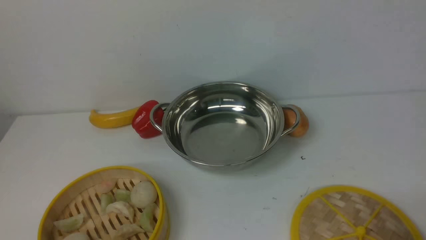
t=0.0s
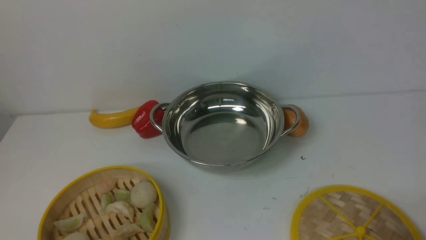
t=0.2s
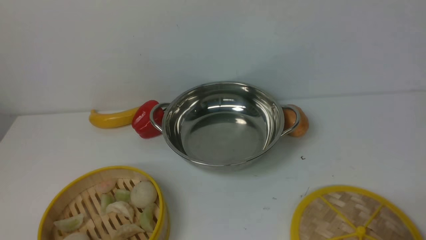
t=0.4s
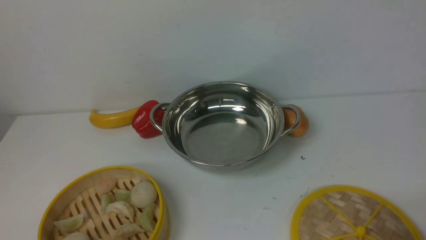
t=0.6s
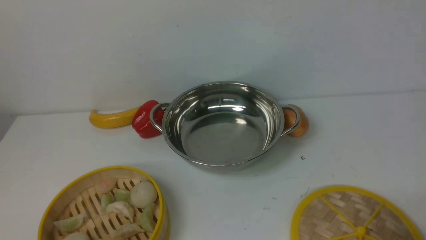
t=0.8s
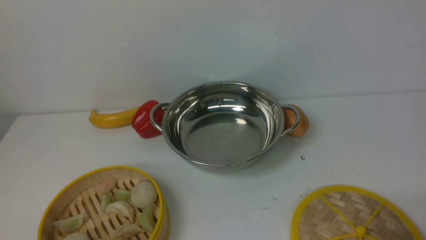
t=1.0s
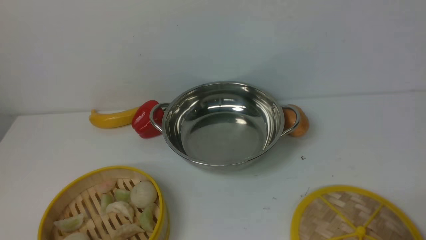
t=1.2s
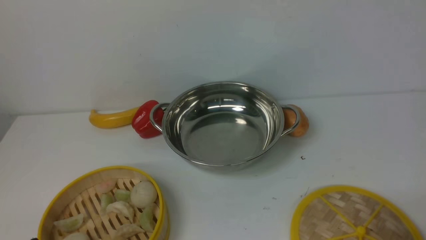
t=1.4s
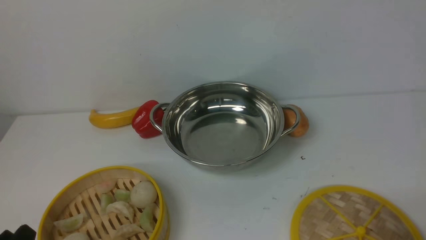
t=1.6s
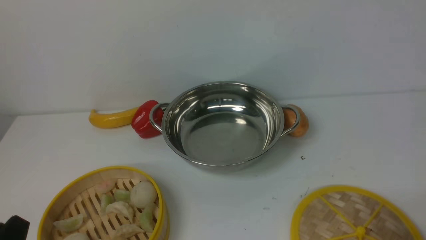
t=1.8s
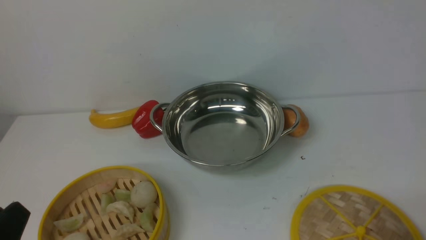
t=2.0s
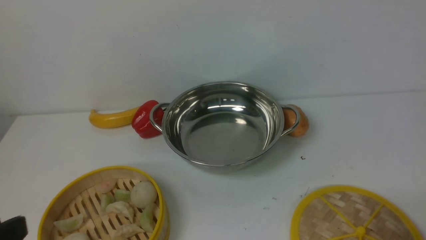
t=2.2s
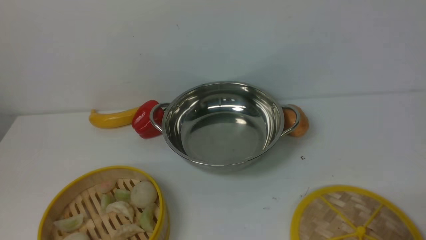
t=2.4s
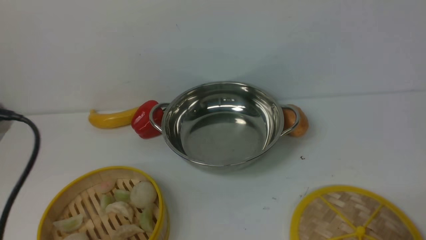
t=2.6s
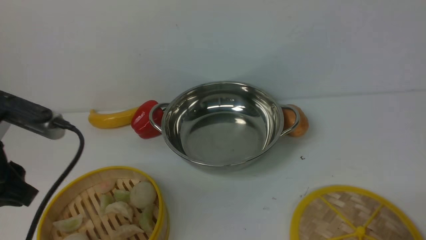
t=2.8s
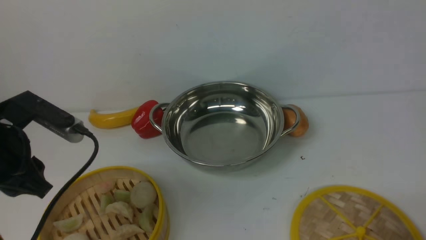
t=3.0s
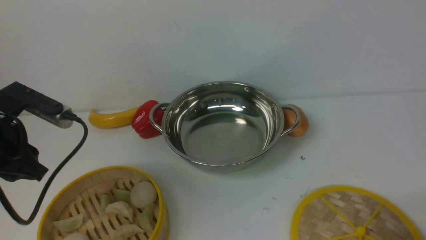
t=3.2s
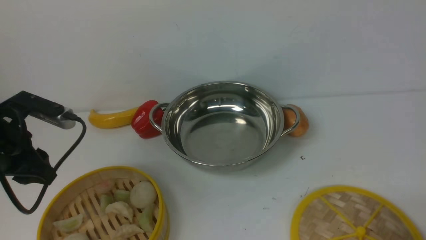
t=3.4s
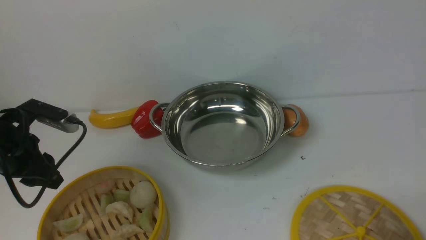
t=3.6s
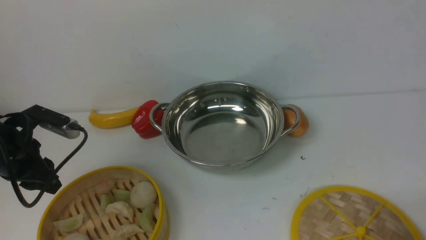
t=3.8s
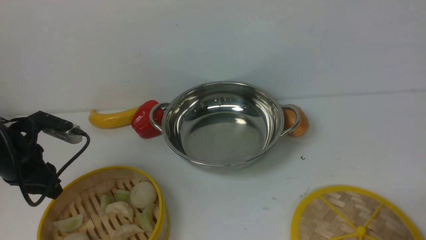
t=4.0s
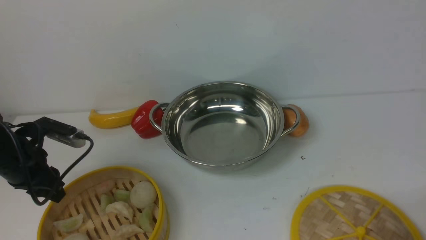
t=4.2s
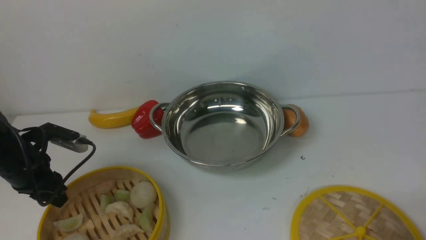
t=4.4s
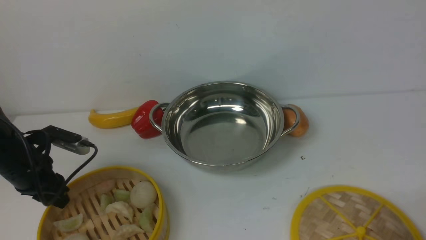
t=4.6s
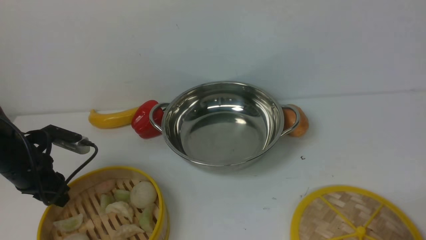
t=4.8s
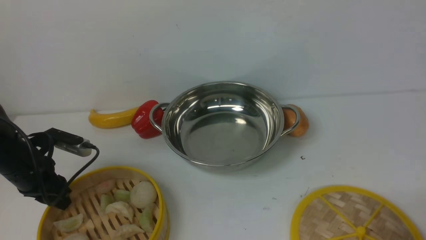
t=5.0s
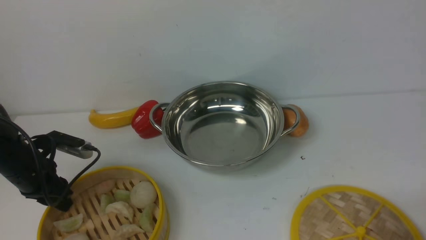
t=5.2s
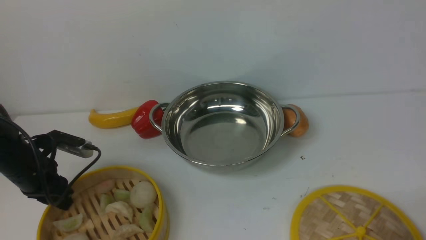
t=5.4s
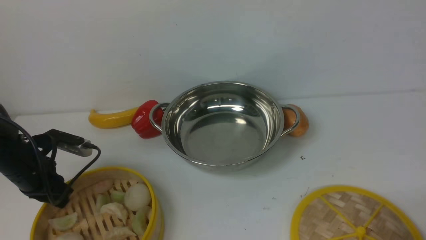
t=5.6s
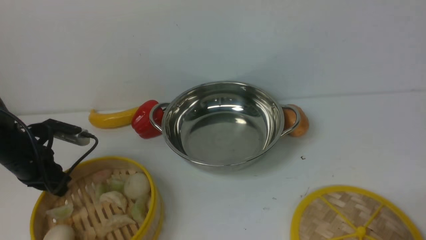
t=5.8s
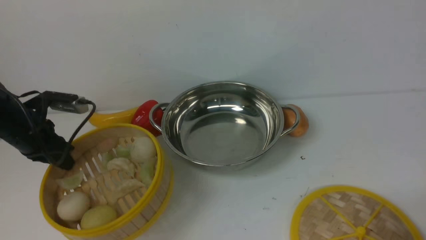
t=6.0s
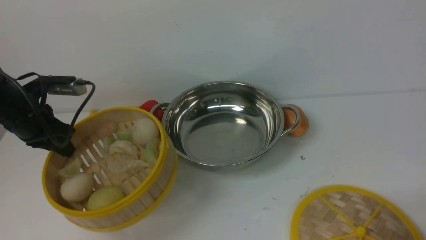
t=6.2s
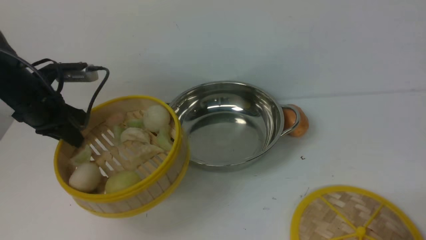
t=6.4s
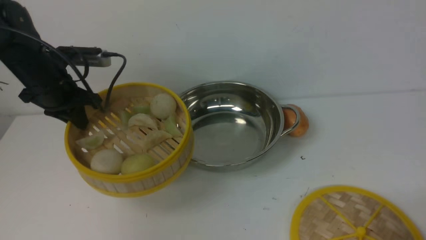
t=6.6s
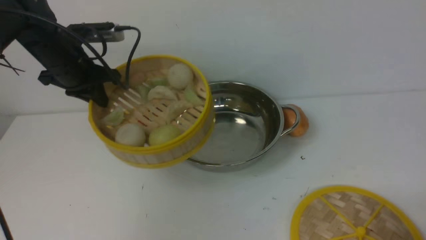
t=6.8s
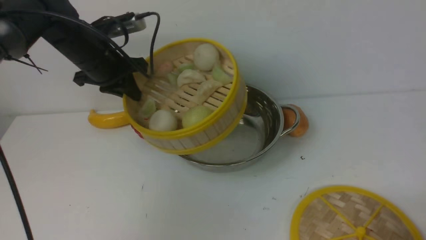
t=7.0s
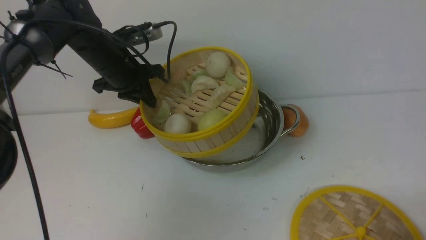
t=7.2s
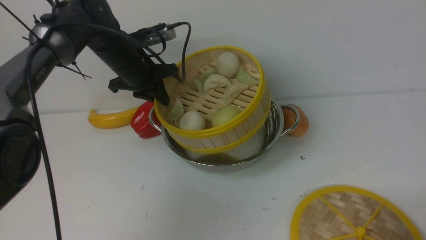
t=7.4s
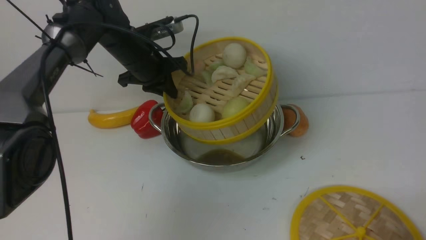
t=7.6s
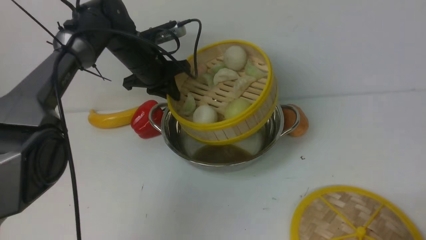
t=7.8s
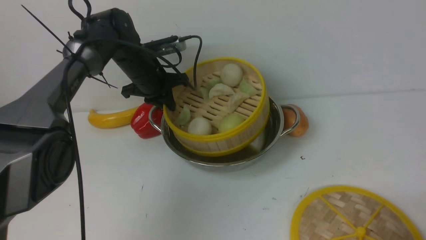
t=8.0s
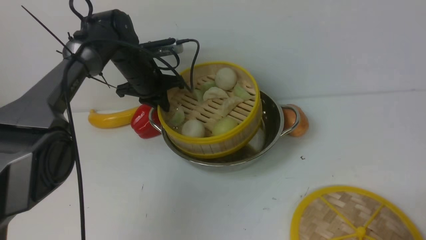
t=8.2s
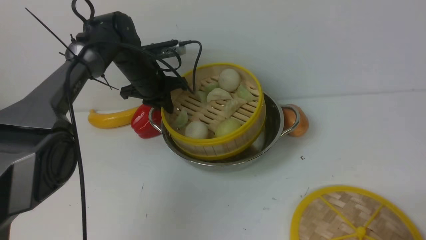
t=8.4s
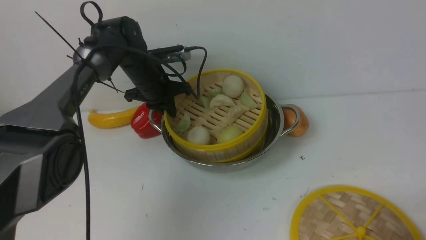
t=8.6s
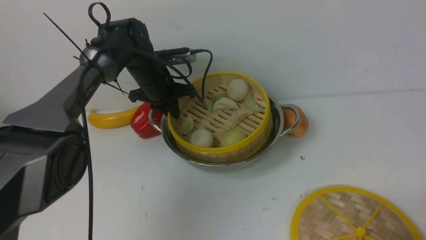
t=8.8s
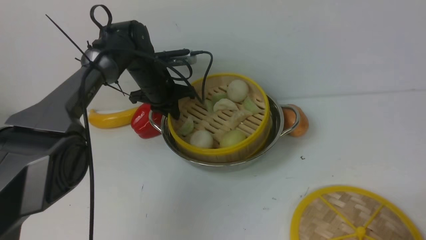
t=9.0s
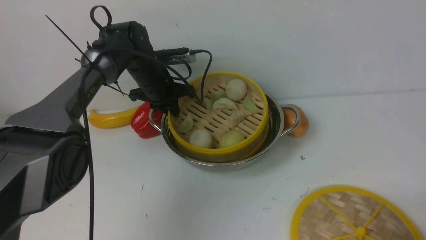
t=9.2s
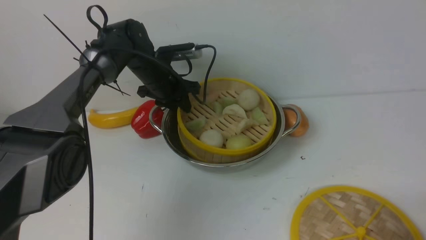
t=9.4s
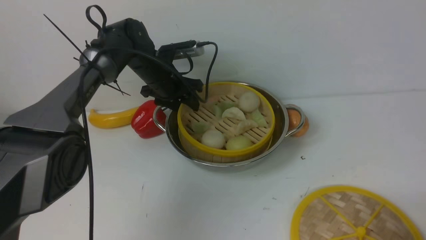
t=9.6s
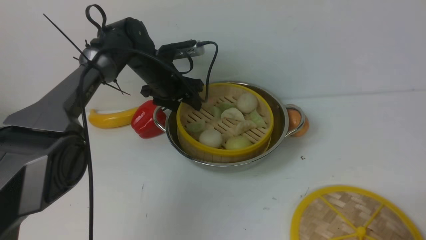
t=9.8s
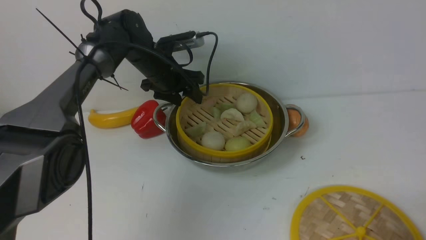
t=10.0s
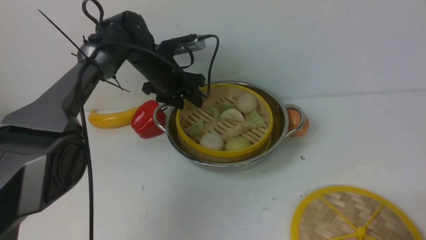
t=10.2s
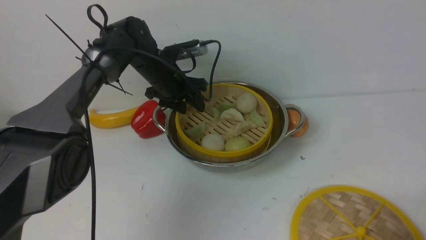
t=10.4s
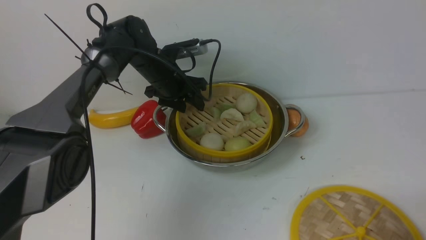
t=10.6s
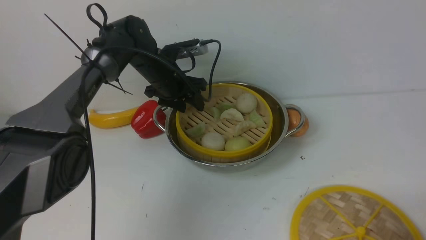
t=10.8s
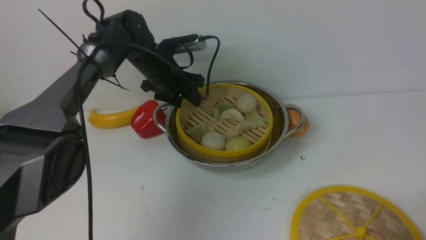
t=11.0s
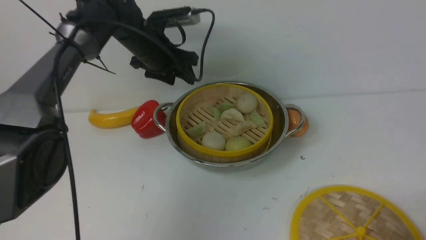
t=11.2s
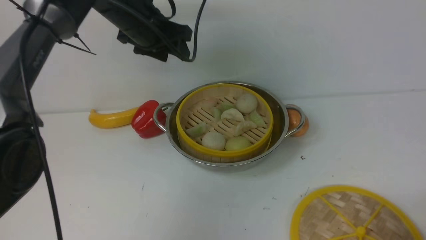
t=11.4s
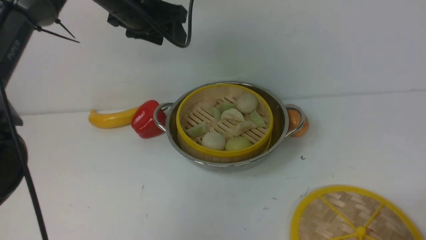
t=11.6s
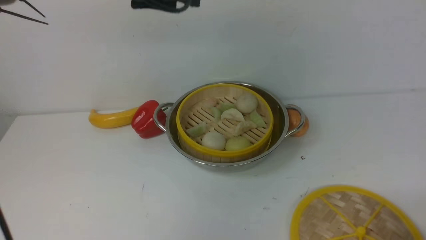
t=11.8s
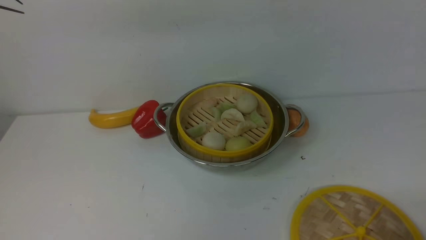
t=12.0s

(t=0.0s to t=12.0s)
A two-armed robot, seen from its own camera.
Task of the whole recording: place the steamer in the pot on the white table, and put the lid on the steamer.
Step, t=0.0s - t=6.4s: use the left arm to lift the steamer closest to it.
Step, t=6.6s - t=11.4s: use the left arm to put the steamer into the iron steamer pot in the middle.
t=1.6s - t=3.0s: The left gripper goes approximately 20 cm forward and upward.
t=3.0s - t=4.4s: The left gripper heads downward, forward and to the left, covering roughly 15 cm.
t=4.4s - t=6.0s: The left gripper moves some 5 cm, and closes up.
t=6.0s - t=7.6s: The left gripper heads to the right and forward, covering about 20 cm.
t=7.6s - t=9.0s: The left gripper shifts roughly 5 cm downward.
t=9.0s - t=10.4s: The left gripper opens.
t=10.4s - t=12.0s: The left gripper shifts some 30 cm upward and backward.

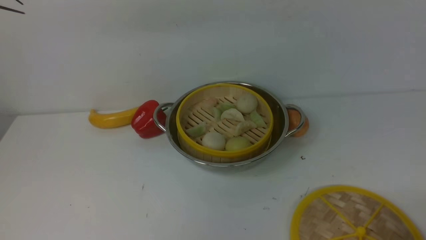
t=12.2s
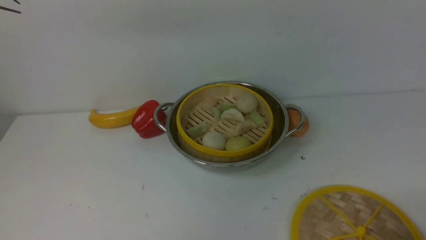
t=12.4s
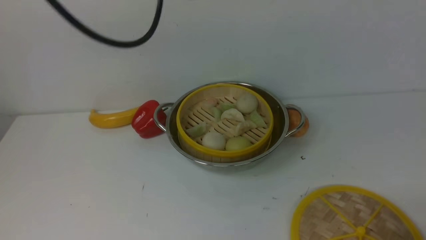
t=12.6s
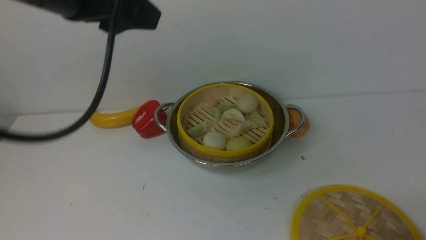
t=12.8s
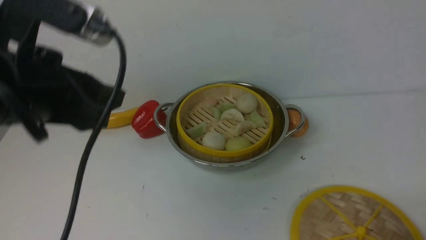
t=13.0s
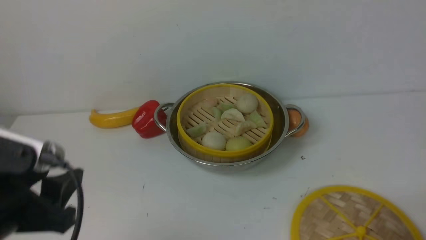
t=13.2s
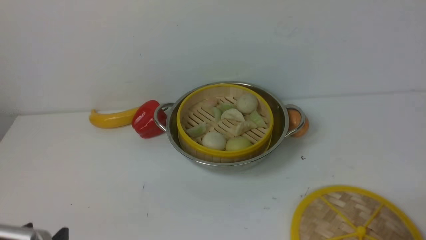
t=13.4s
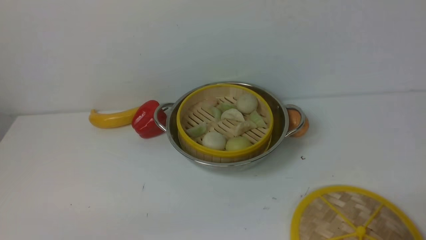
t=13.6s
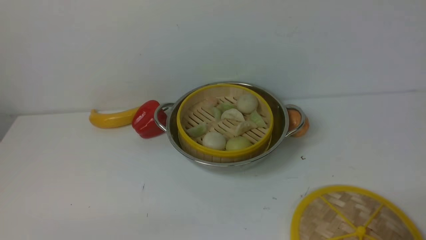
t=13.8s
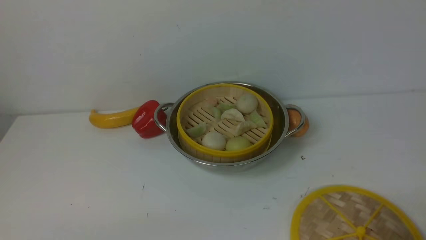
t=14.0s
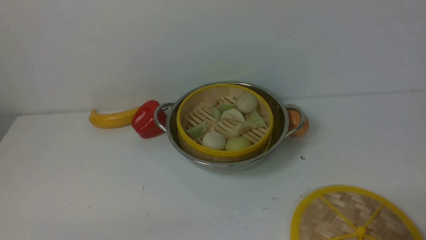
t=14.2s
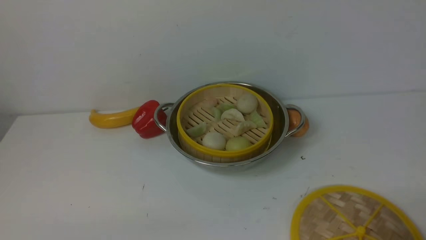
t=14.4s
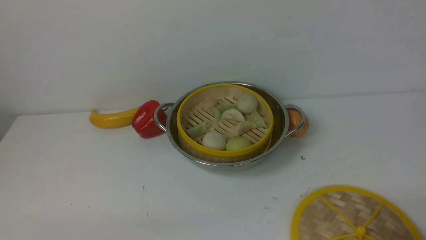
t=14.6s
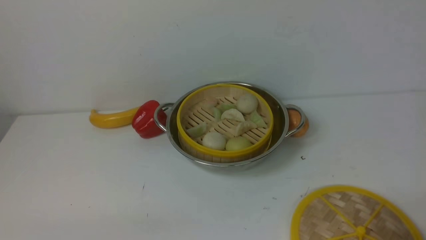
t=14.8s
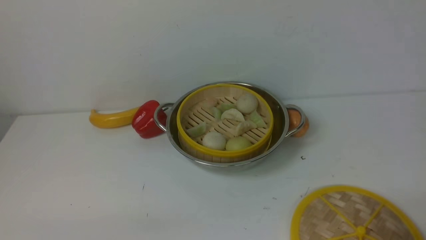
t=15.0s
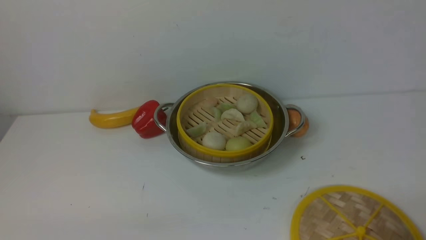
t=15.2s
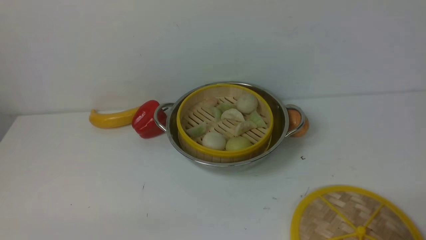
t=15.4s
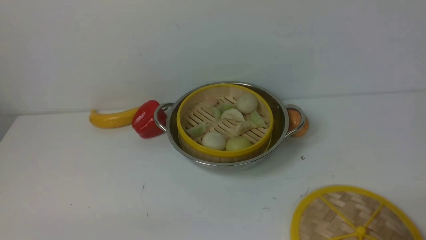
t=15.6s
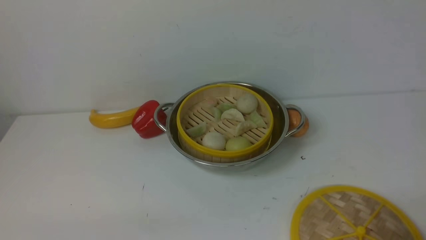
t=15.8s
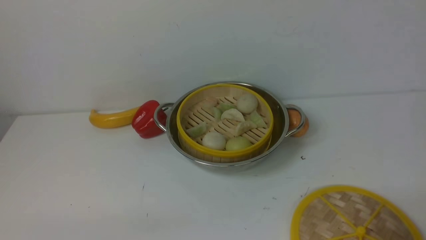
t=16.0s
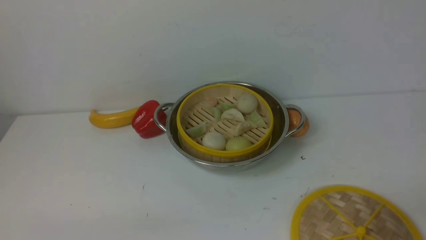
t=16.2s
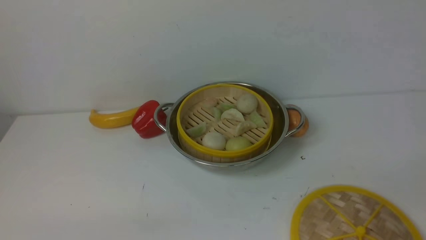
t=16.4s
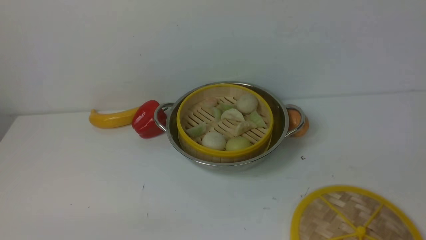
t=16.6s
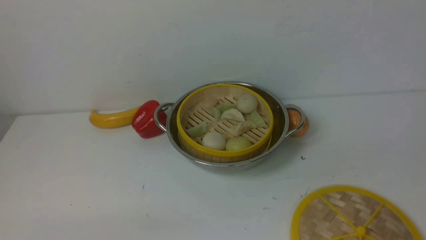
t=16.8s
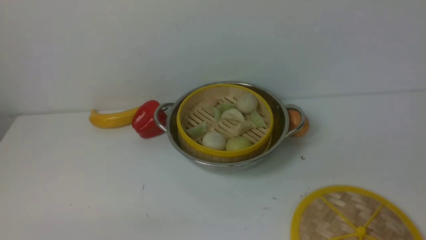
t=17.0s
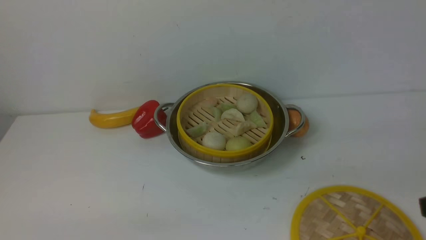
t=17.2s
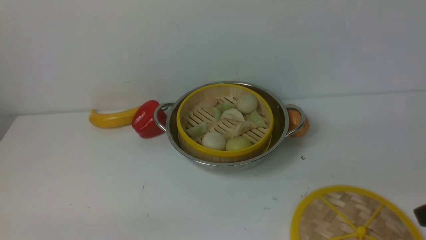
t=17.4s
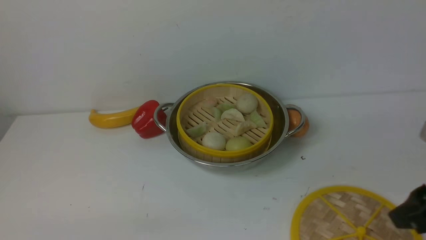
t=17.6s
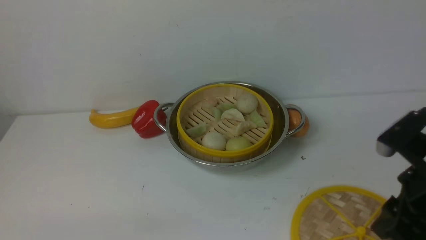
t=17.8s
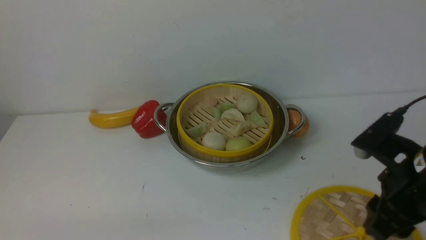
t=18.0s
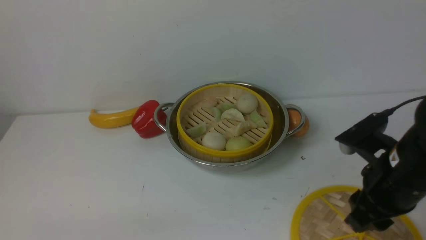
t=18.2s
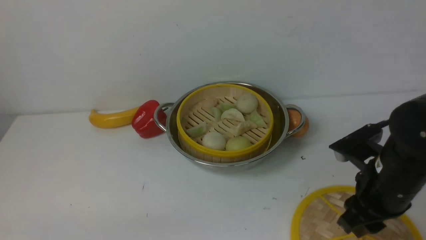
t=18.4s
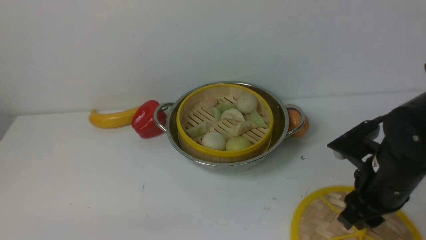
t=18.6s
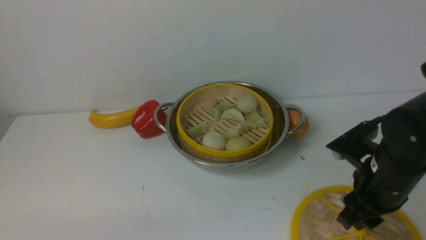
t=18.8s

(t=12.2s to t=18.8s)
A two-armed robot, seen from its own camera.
Task of the whole recording: place the steamer in the pot on the white table, and put the lid on the steamer.
t=12.2s - t=13.8s: The left gripper travels backward and downward by about 40 cm.
t=17.2s - t=18.8s: The right gripper goes some 15 cm forward, downward and to the left.
